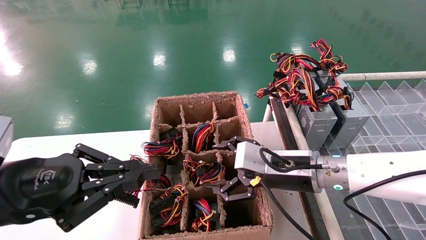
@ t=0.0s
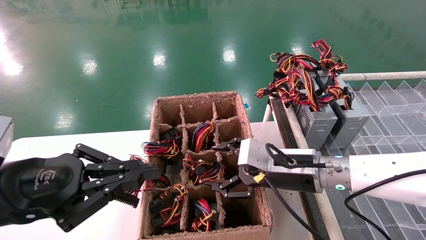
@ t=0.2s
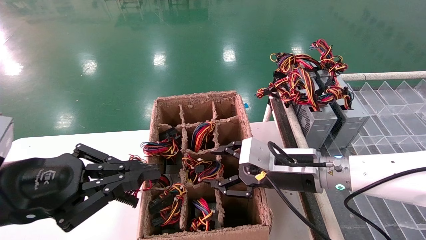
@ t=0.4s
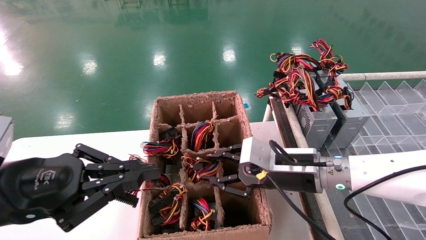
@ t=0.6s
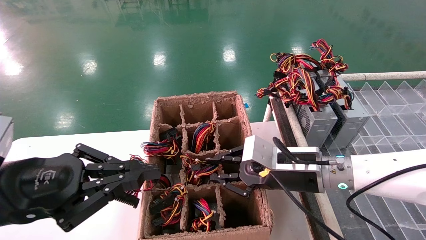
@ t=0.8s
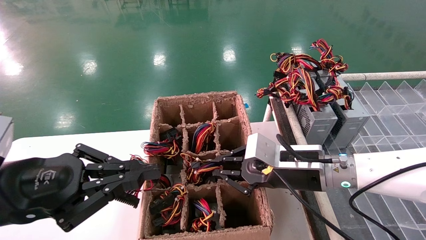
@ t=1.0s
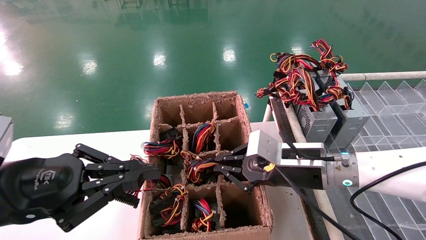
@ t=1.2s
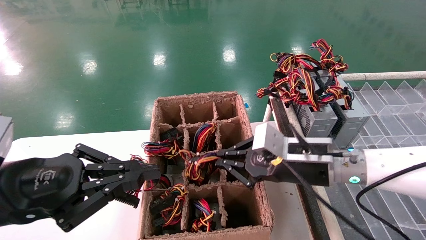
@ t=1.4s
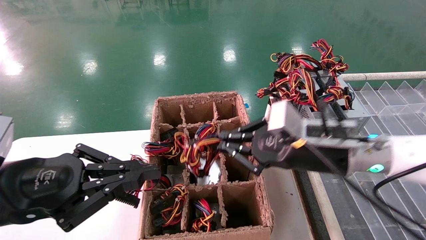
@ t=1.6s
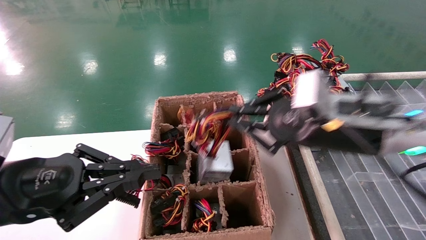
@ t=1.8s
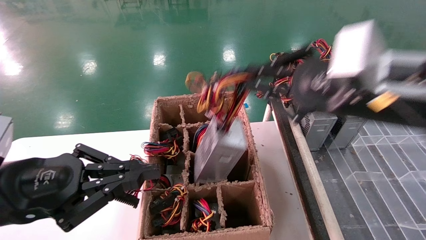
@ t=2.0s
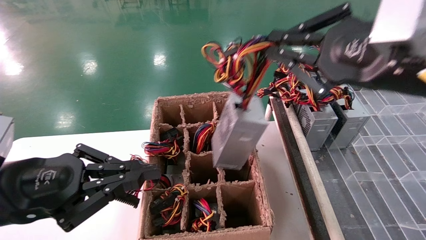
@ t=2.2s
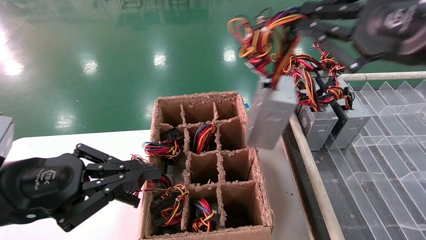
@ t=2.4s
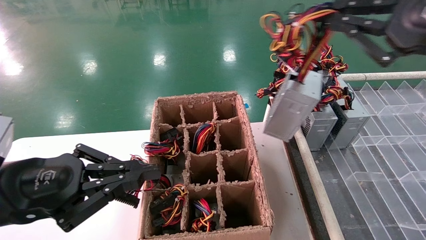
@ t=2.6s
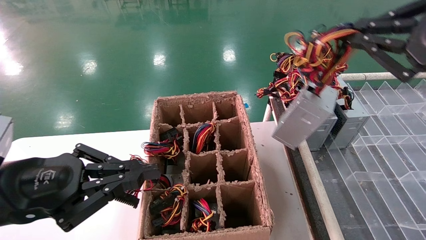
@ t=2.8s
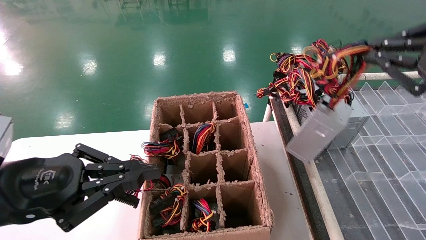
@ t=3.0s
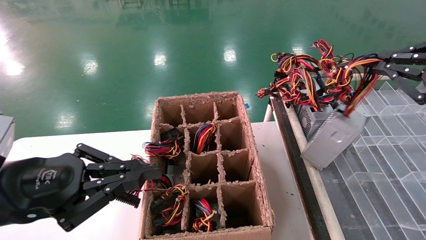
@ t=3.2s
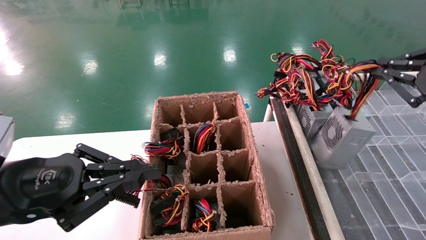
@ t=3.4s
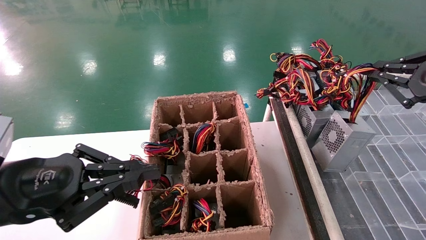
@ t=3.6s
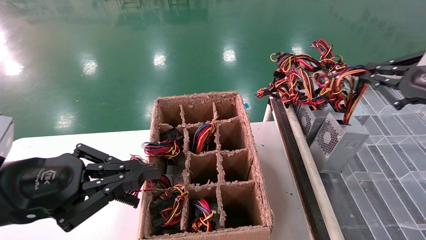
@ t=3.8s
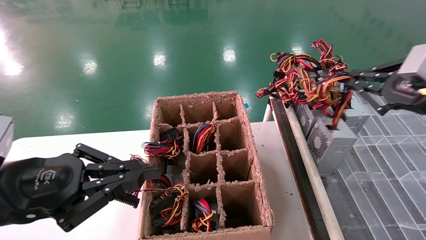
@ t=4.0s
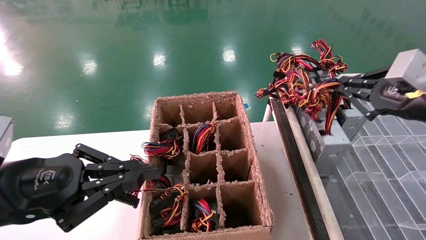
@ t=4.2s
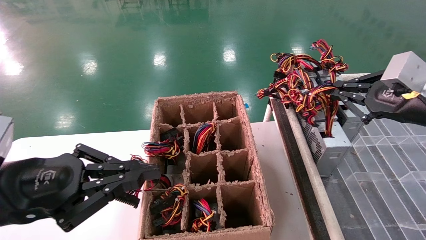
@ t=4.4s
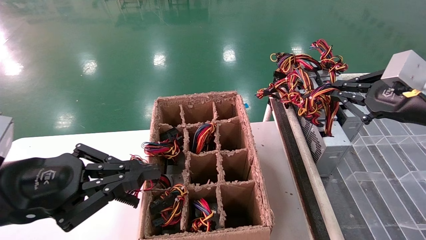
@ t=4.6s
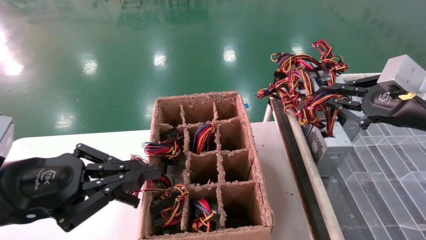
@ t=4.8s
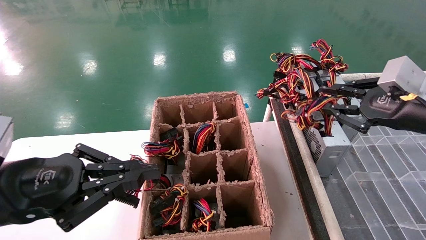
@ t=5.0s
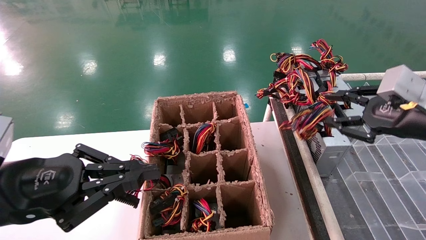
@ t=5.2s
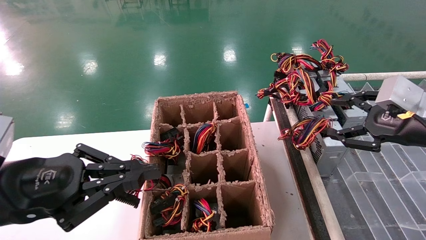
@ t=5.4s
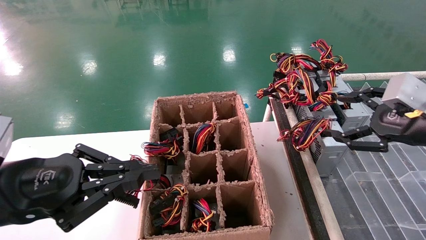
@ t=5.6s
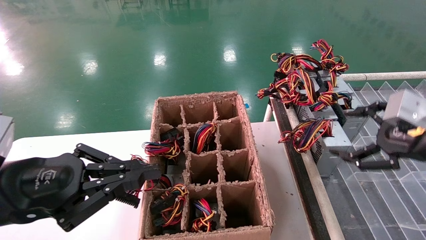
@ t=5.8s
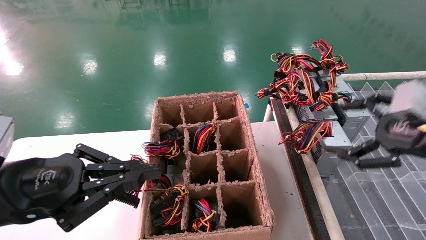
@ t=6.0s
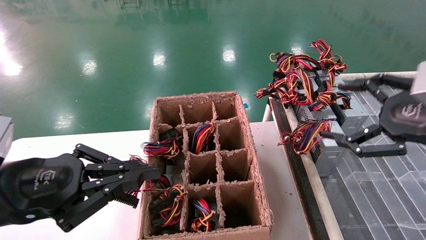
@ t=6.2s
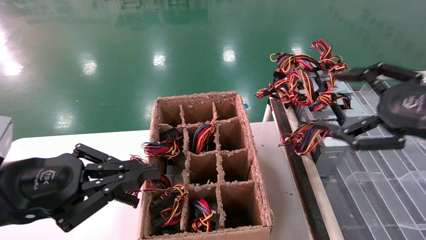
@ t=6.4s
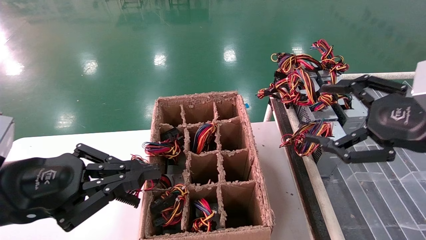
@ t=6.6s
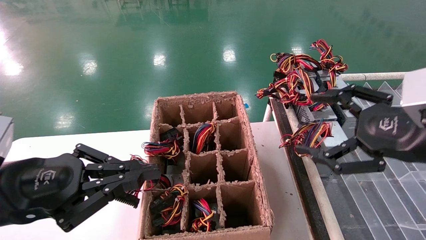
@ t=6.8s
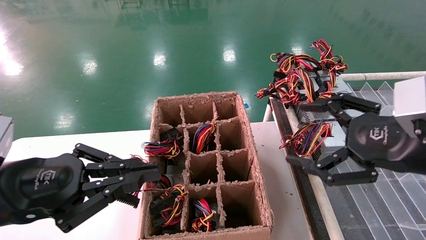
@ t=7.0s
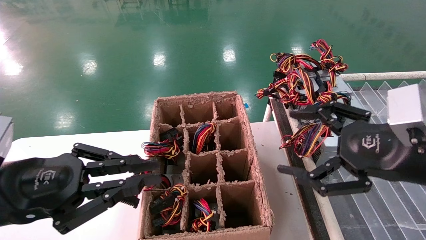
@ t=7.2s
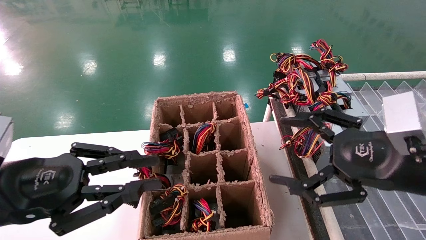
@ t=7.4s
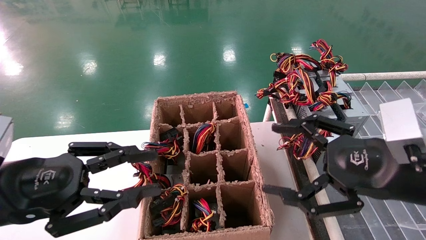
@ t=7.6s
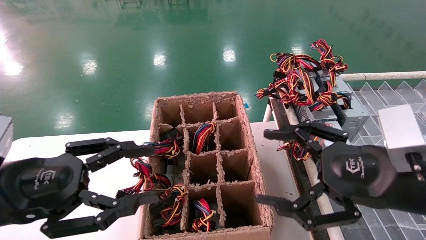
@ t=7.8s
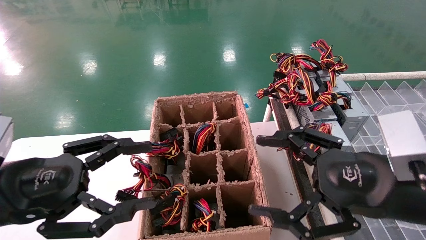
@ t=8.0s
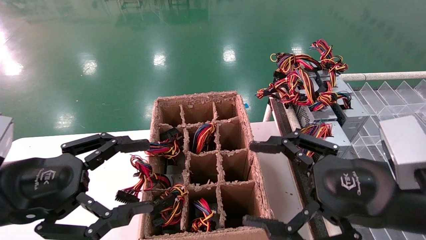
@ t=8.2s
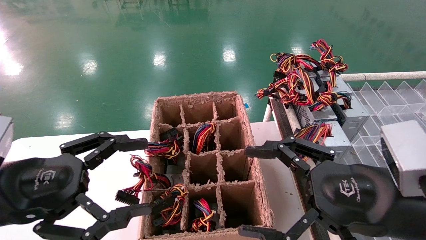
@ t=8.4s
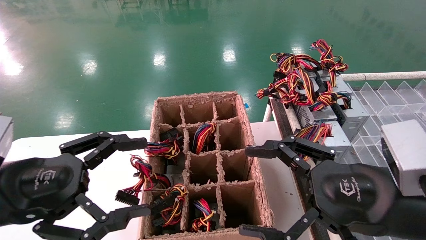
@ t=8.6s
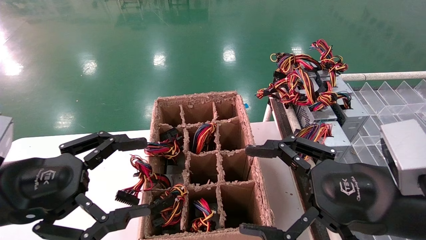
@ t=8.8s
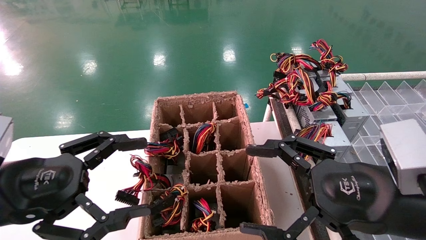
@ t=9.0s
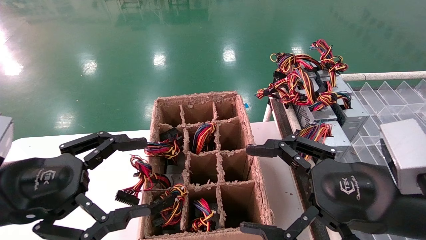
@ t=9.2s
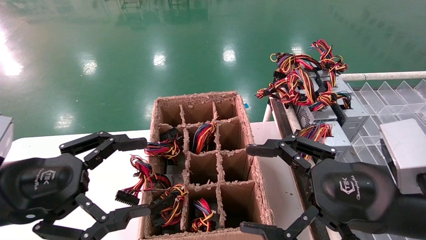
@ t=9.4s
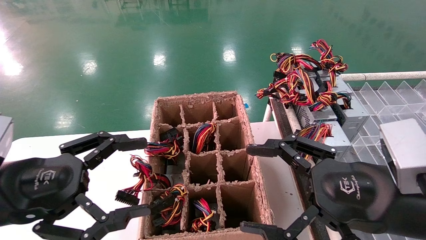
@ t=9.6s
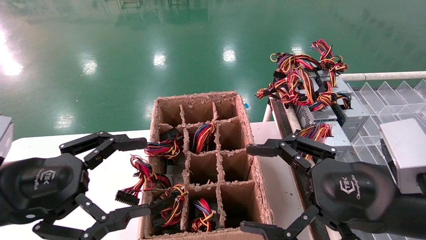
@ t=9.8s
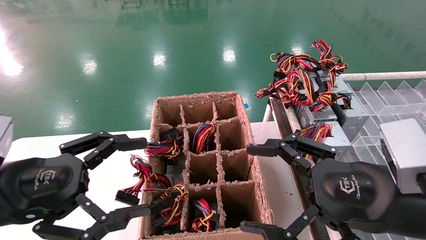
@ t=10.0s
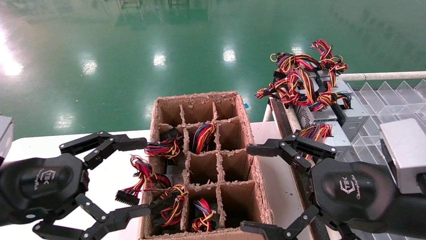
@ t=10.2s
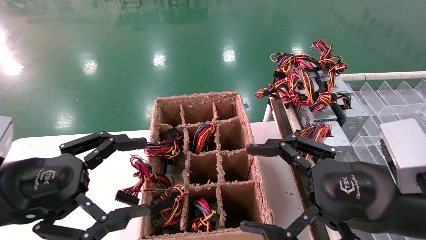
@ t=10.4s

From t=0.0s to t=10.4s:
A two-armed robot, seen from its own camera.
Step, from t=1.4s to t=5.8s: Place the main unit power supply in the designated area.
From t=0.0s to t=1.4s: The right gripper closes its fingers.
From t=1.4s to t=3.0s: The right gripper shifts roughly 25 cm to the right, upward and backward.
From t=3.0s to t=4.4s: The right gripper travels forward and downward by about 10 cm.
From t=4.4s to t=6.0s: The right gripper moves backward, approximately 5 cm, and opens its fingers.
From t=6.0s to t=7.4s: The right gripper heads to the left, covering some 10 cm.
From t=7.4s to t=9.0s: The left gripper opens. The right gripper moves some 5 cm.
From t=9.0s to t=10.4s: Both grippers stay put.

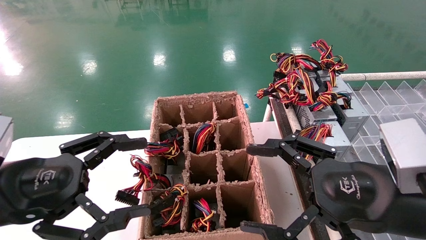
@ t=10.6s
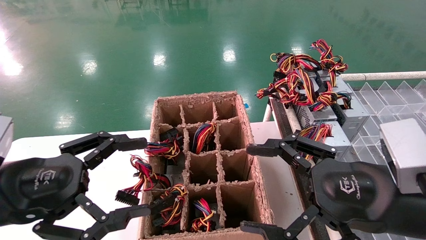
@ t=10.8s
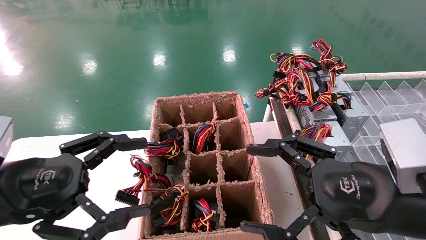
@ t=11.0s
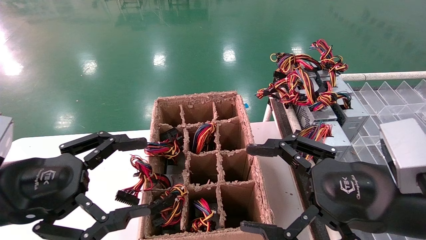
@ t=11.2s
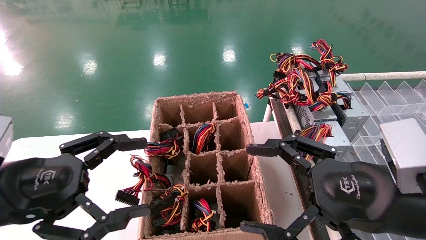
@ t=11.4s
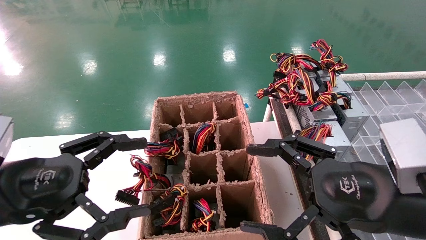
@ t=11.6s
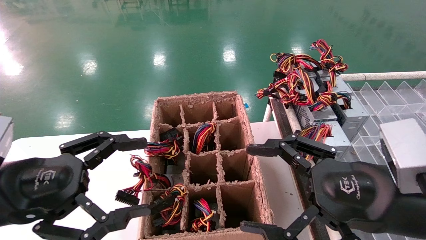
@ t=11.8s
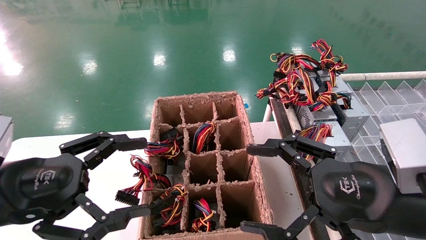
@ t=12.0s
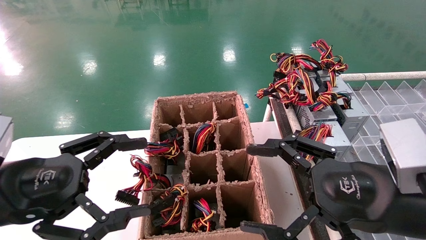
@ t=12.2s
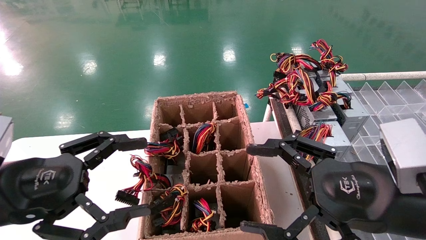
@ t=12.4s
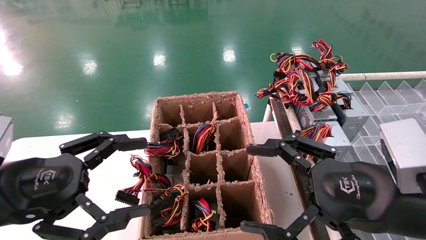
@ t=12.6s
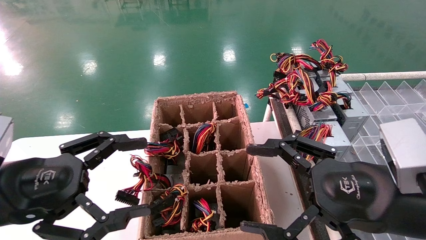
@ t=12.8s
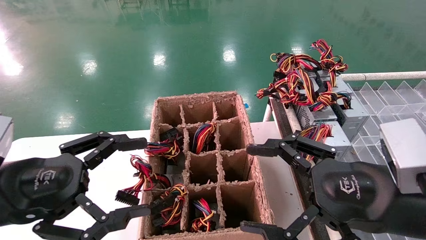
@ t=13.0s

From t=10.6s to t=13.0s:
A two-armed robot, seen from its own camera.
From t=10.6s to t=13.0s: Both grippers stay put.
